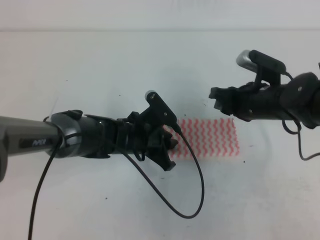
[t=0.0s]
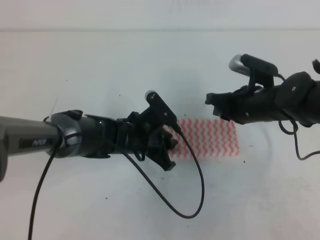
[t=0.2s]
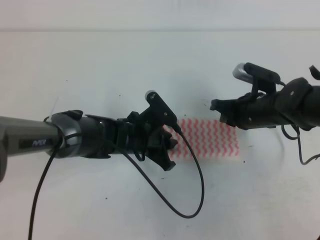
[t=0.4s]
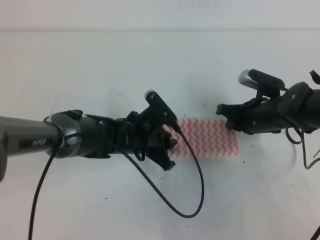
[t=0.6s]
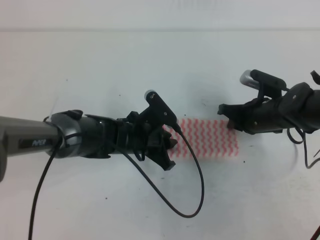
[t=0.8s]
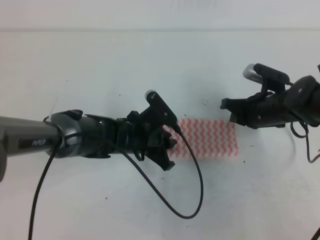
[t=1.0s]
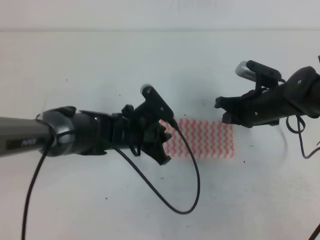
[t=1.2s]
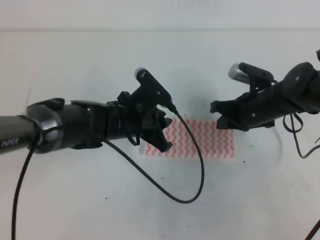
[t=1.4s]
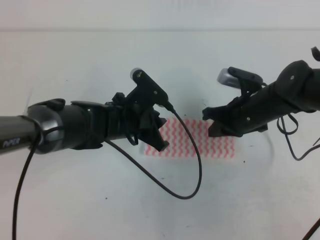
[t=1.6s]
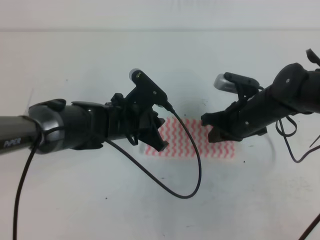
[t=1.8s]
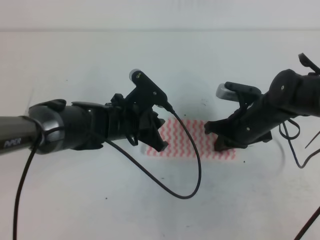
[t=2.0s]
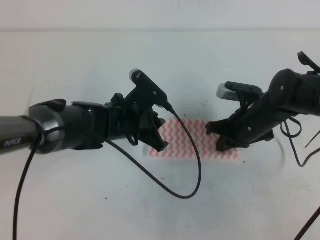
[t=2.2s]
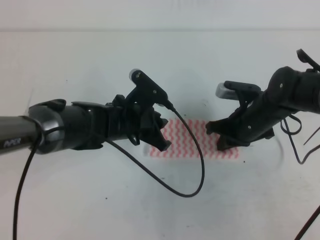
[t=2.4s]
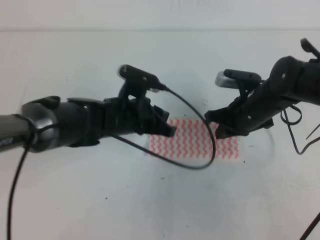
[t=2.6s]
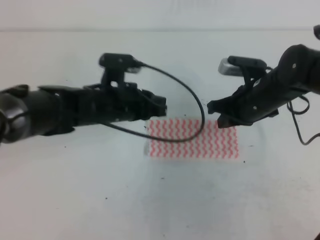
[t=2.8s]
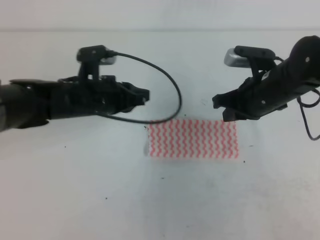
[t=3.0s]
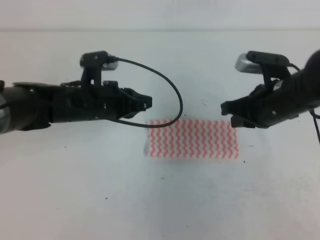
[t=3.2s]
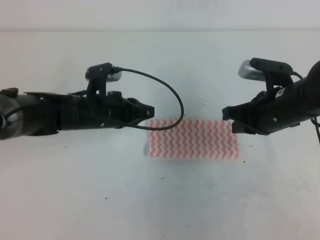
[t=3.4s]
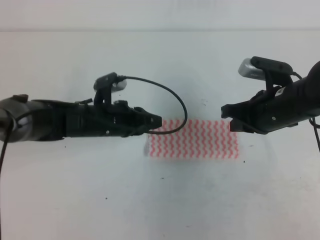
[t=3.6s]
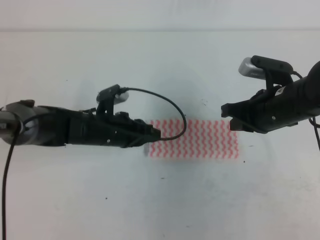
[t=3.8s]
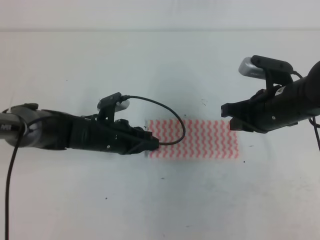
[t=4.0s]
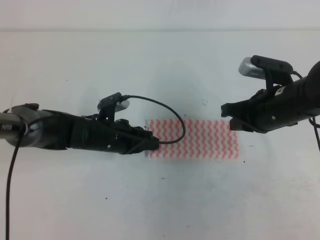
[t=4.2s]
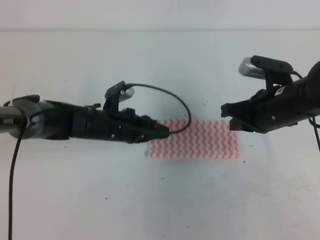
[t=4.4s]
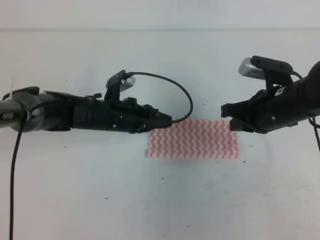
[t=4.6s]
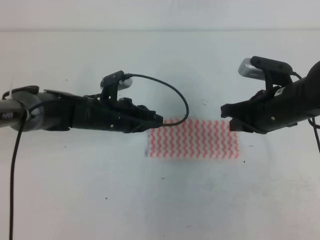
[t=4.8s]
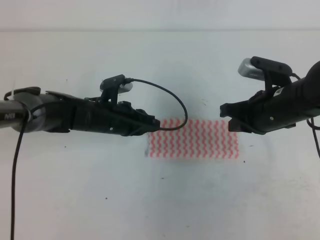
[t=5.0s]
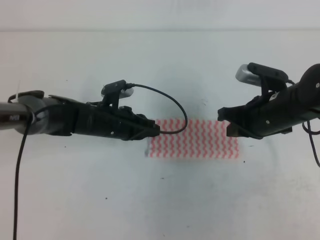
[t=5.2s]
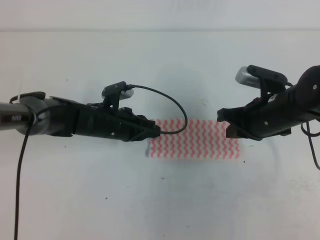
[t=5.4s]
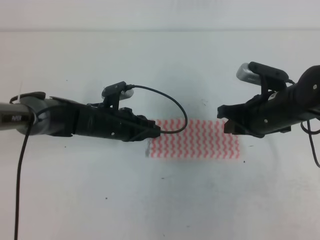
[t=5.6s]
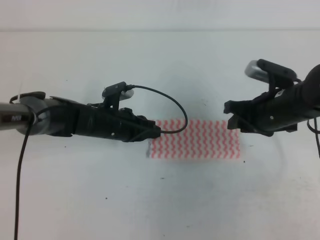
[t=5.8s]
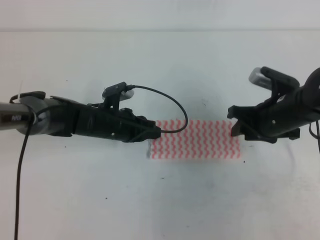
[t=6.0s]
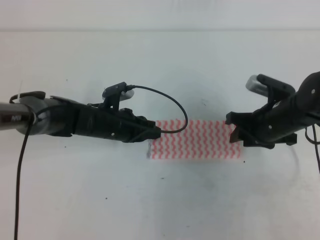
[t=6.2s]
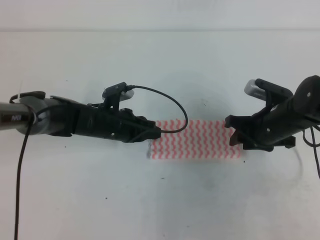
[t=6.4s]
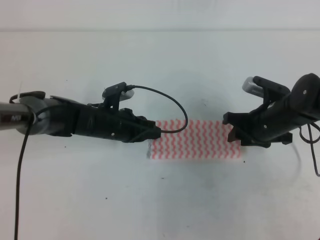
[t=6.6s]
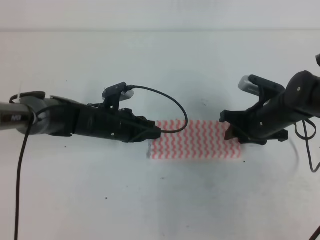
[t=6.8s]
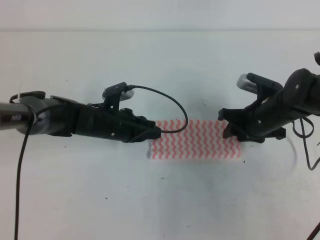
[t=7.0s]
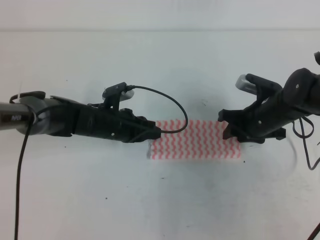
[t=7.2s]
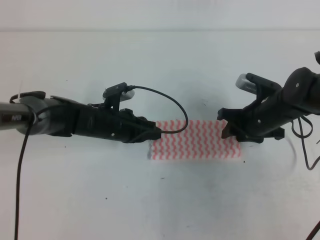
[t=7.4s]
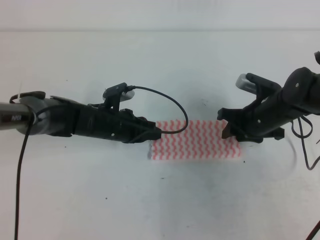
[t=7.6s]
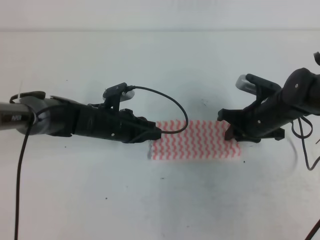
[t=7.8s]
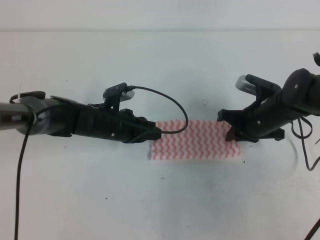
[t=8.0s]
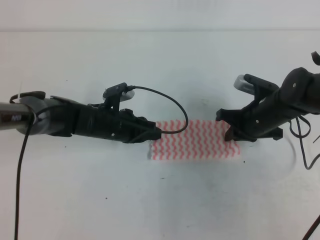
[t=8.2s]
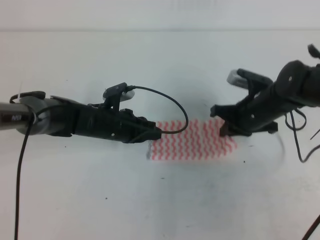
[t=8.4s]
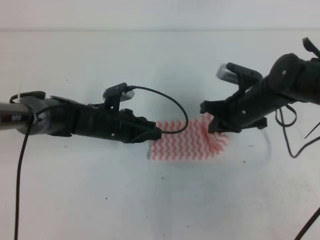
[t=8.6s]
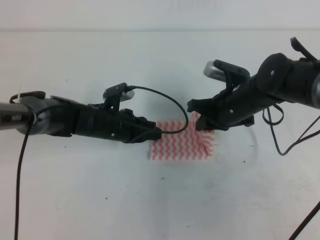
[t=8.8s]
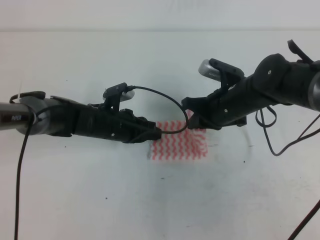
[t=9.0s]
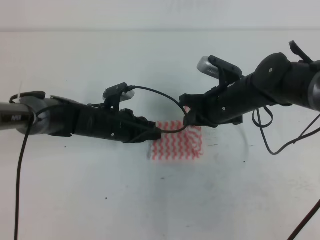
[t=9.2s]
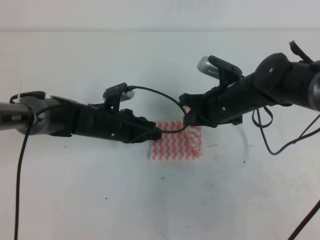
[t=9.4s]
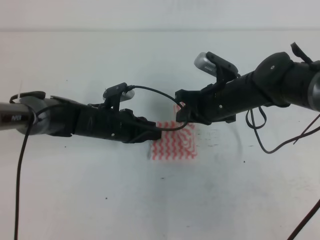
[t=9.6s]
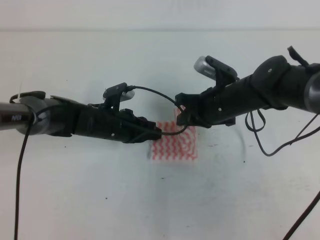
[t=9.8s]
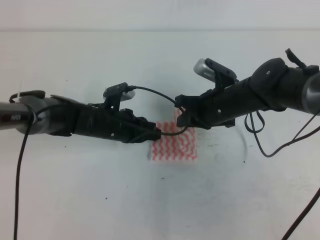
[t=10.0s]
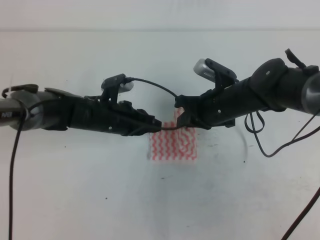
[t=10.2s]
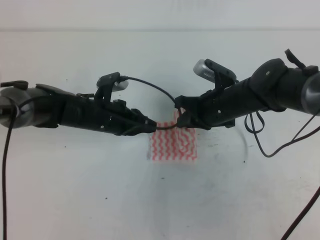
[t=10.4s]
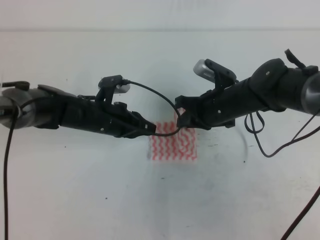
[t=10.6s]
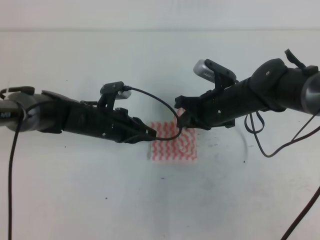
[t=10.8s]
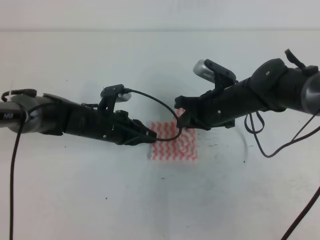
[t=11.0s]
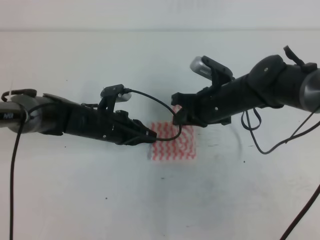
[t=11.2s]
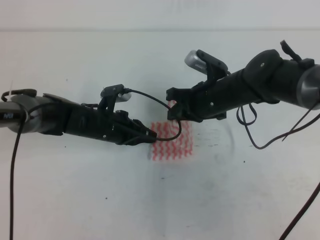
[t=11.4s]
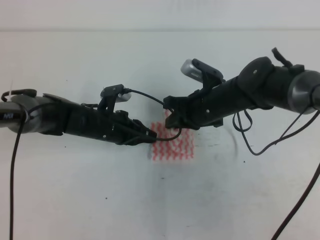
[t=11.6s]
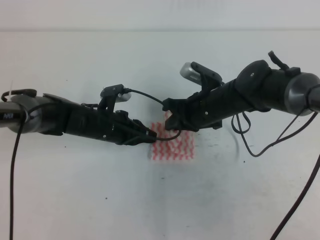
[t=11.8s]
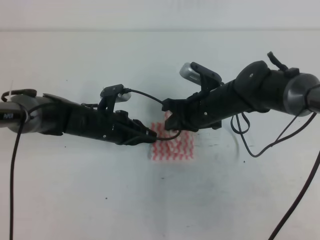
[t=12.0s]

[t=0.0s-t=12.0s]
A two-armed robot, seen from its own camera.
t=0.0s to t=1.6s: The right gripper closes its fingers. The left gripper shifts some 5 cm upward.
t=1.6s to t=3.0s: The right gripper goes some 5 cm upward; the left gripper ends up roughly 5 cm from where it was.
t=3.0s to t=4.4s: The left gripper moves downward, approximately 10 cm.
t=4.4s to t=6.0s: The right gripper opens up.
t=6.0s to t=7.6s: The right gripper moves roughly 5 cm.
t=7.6s to t=9.0s: The right gripper shifts approximately 5 cm to the left, and closes.
t=9.0s to t=12.0s: The grippers move only a little.

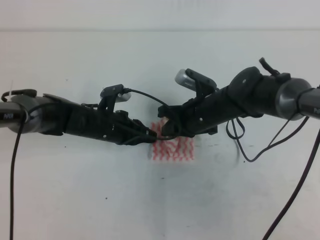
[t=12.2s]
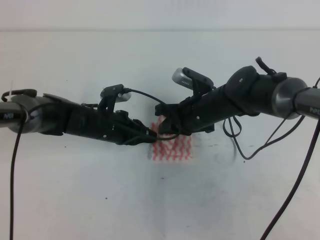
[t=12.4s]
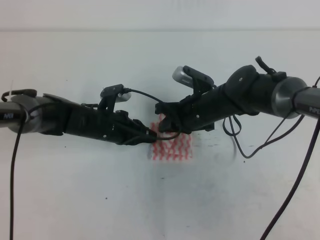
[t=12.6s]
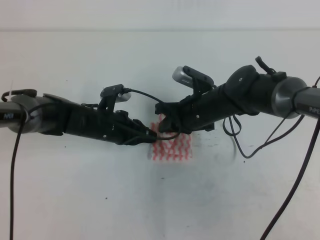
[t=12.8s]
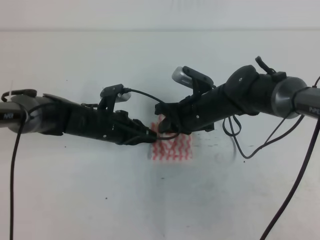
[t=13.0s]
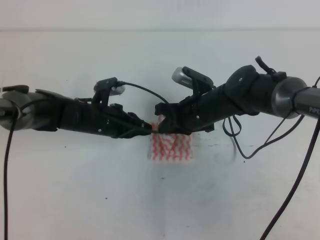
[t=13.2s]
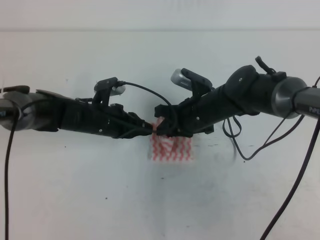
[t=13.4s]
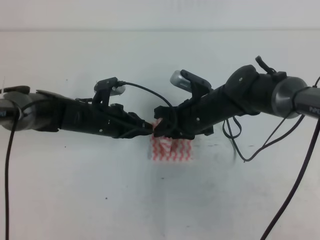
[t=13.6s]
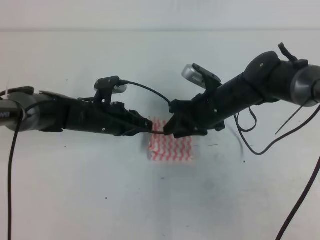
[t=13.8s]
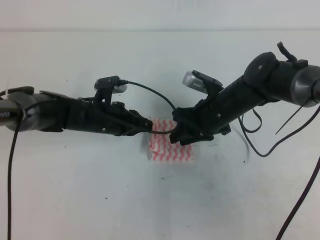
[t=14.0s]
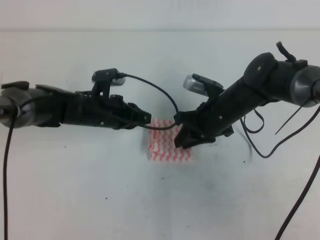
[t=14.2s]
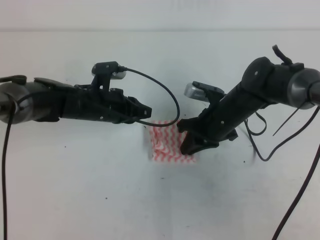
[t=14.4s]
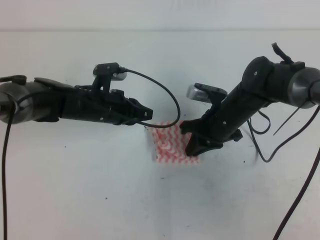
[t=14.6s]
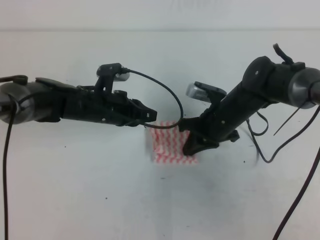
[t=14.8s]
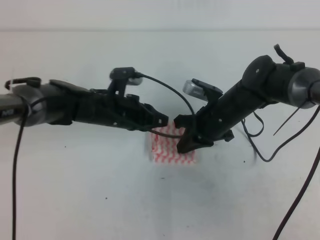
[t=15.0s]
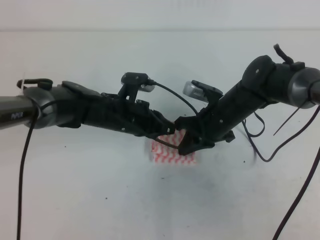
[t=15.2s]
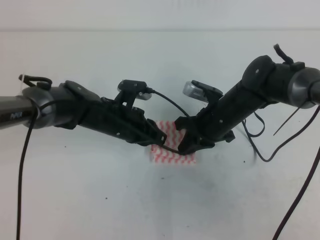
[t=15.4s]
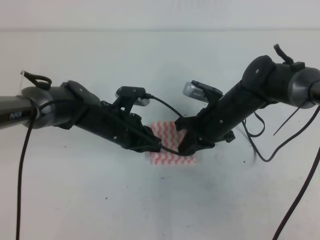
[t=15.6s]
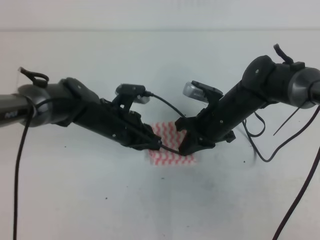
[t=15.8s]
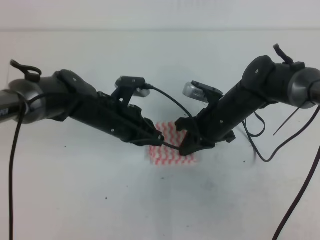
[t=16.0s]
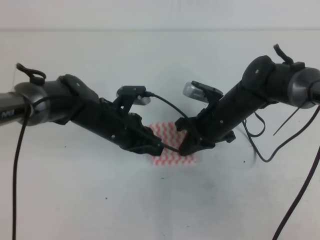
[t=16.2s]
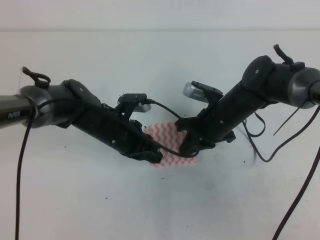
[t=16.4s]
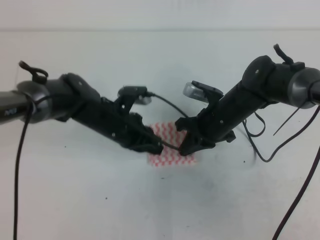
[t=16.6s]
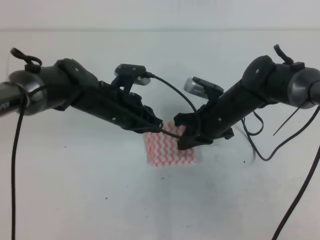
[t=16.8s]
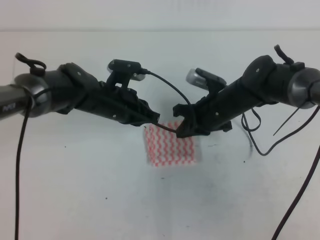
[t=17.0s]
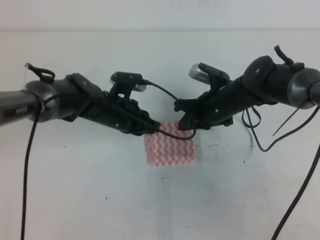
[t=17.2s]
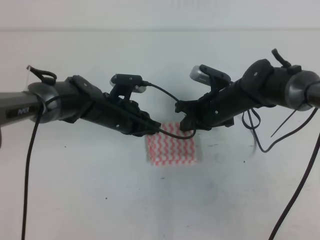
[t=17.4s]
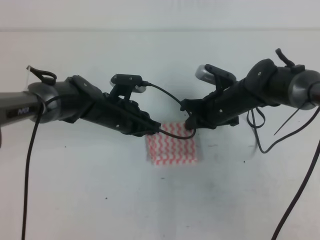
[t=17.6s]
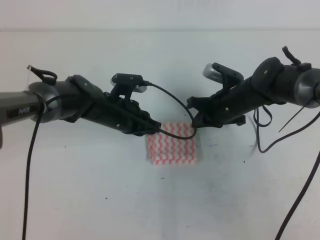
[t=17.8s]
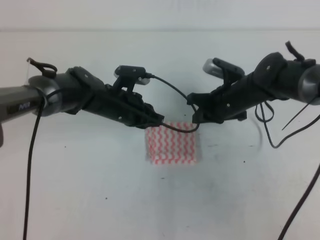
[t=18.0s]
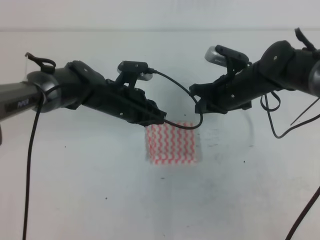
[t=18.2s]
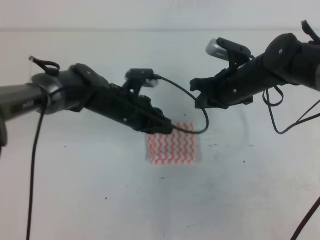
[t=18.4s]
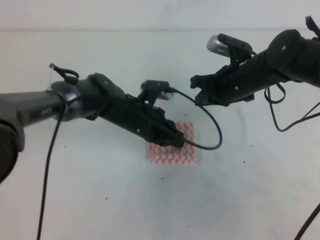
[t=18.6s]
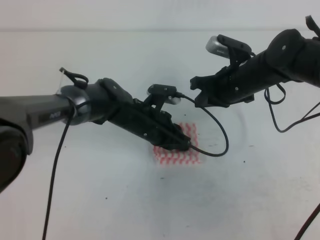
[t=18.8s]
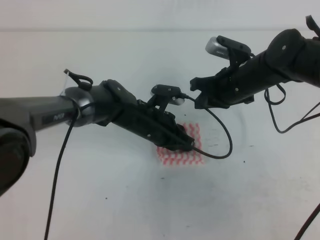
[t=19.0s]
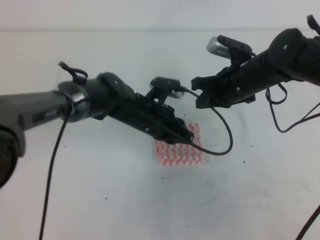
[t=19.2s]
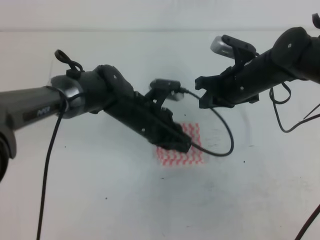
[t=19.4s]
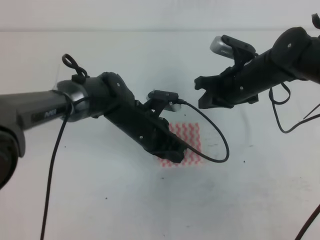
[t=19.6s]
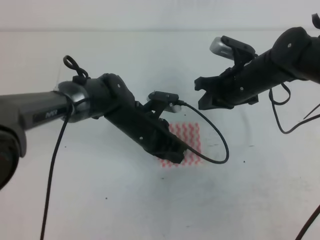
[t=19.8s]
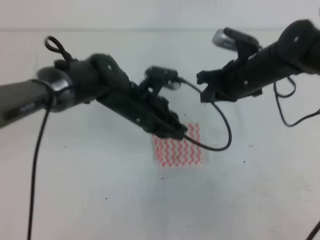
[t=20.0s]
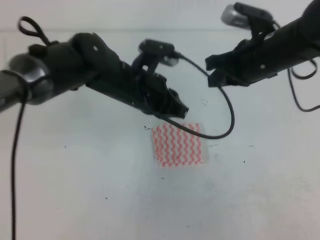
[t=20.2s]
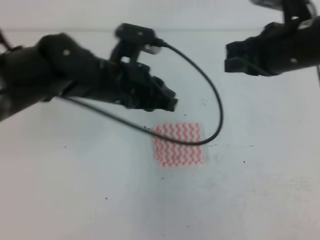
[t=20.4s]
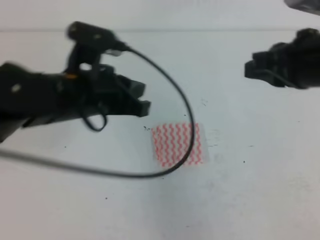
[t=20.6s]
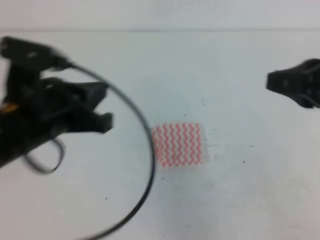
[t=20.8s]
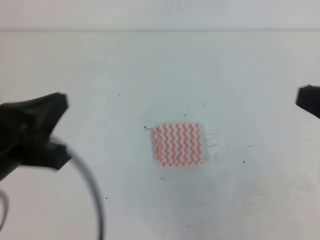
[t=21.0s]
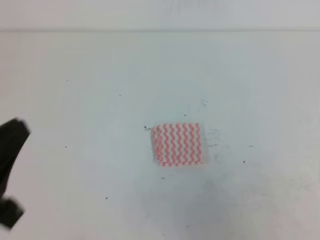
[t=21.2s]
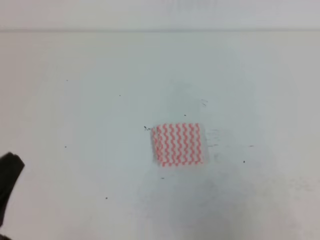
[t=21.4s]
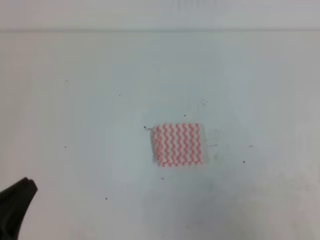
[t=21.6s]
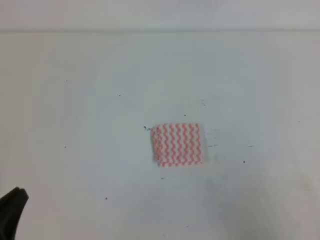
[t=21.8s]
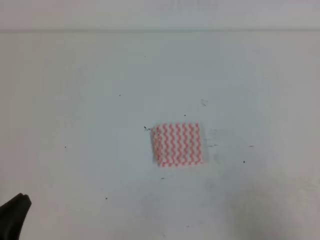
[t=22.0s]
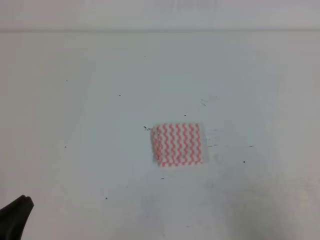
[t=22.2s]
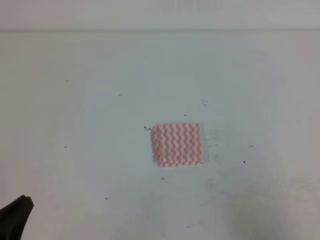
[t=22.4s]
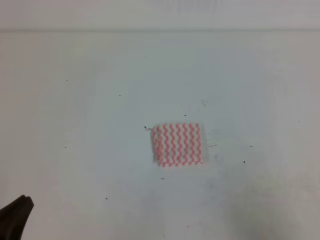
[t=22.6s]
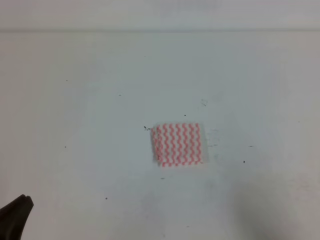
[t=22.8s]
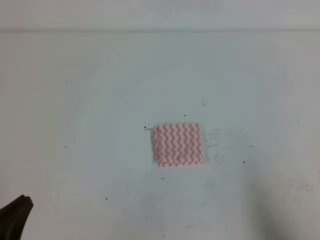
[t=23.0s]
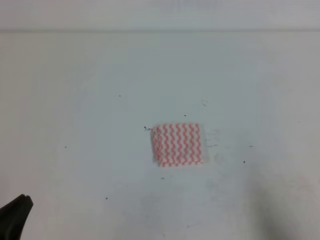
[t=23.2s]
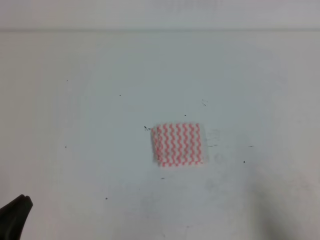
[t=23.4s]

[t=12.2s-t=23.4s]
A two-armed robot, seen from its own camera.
t=12.2s to t=13.8s: The right gripper opens its fingers.
t=13.8s to t=15.4s: The right gripper closes up.
t=15.4s to t=17.0s: The grippers make only small movements.
t=17.0s to t=18.6s: The right gripper heads upward, covering about 5 cm.
t=18.6s to t=20.2s: The two grippers go some 10 cm upward.
t=20.2s to t=21.8s: The right gripper is displaced backward and to the right by about 30 cm; the left gripper heads backward and to the left, covering about 30 cm.
t=21.8s to t=23.4s: The right gripper shifts approximately 5 cm downward.
